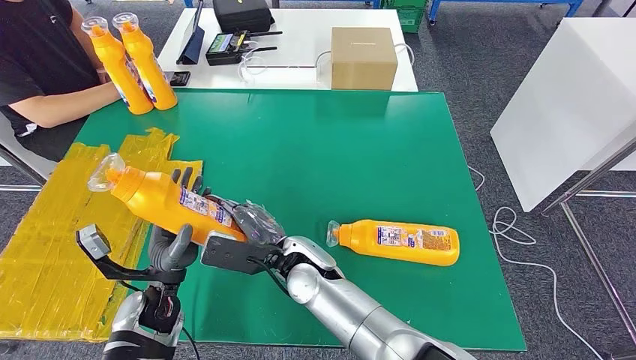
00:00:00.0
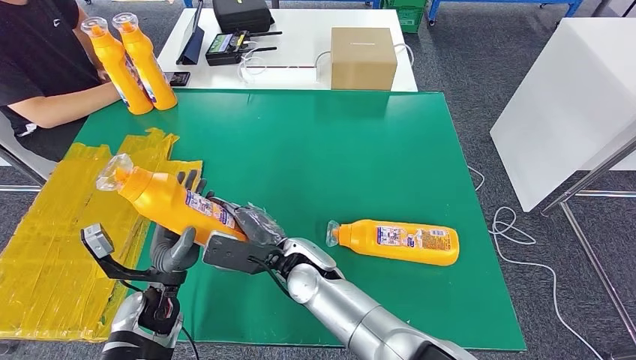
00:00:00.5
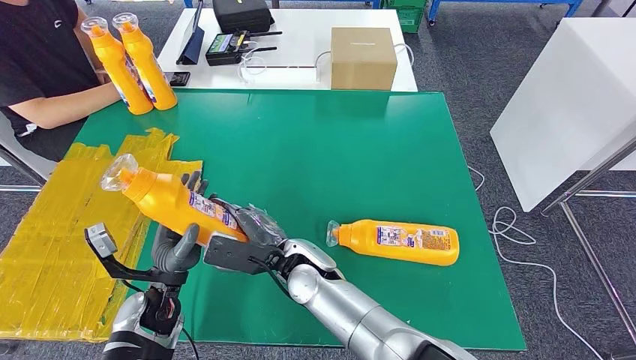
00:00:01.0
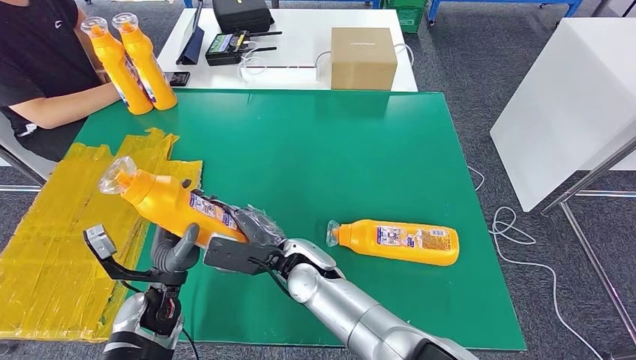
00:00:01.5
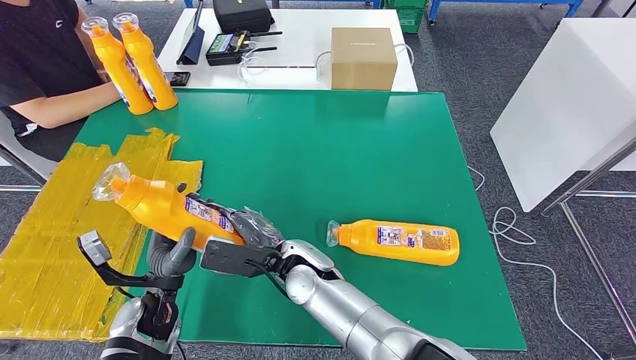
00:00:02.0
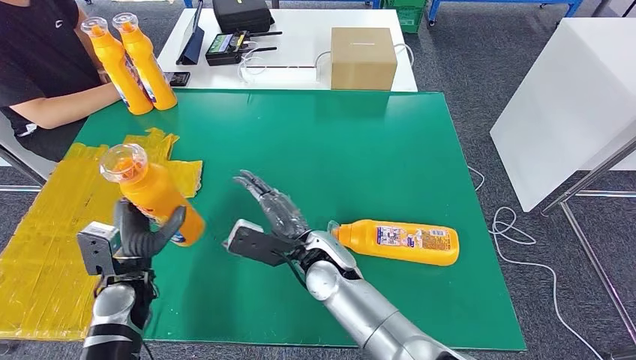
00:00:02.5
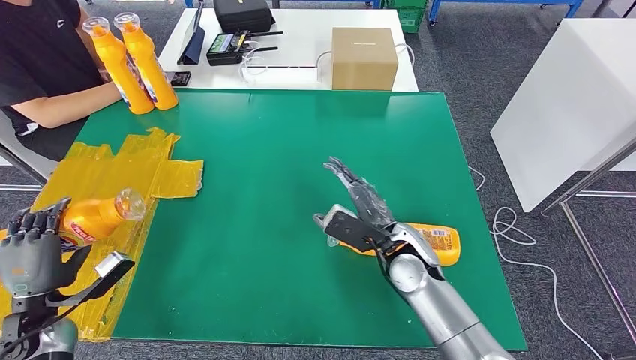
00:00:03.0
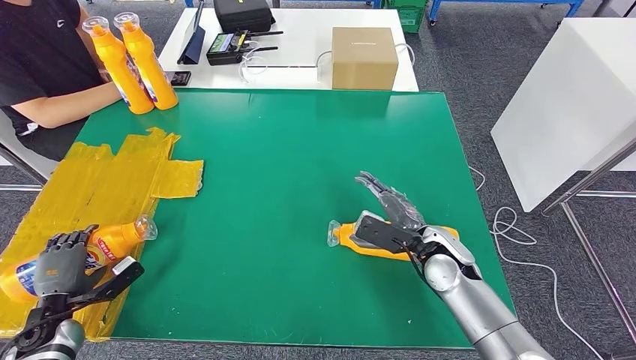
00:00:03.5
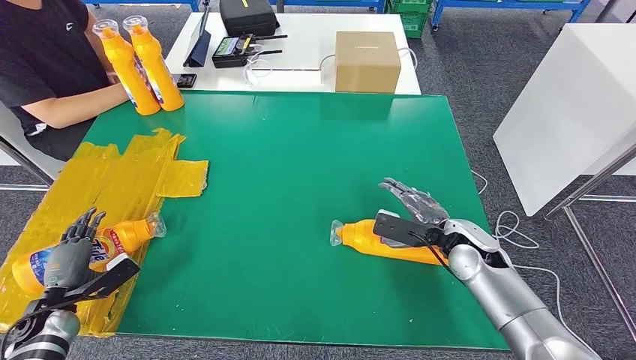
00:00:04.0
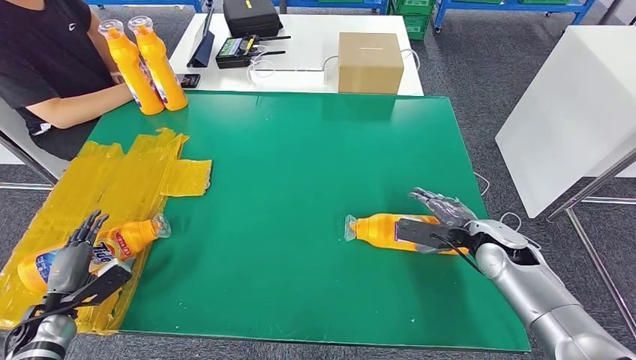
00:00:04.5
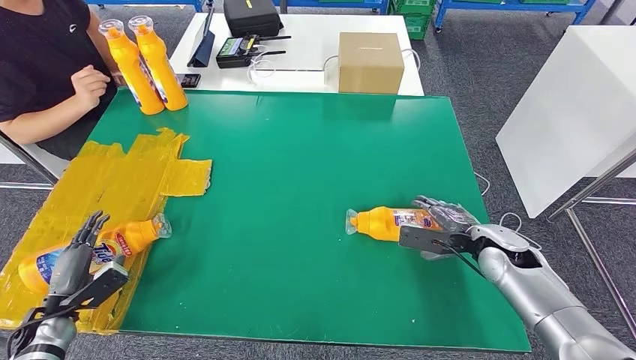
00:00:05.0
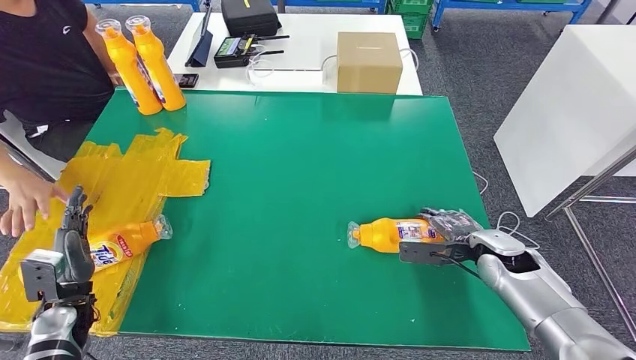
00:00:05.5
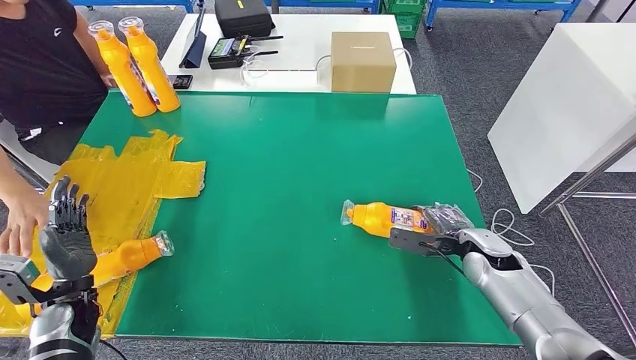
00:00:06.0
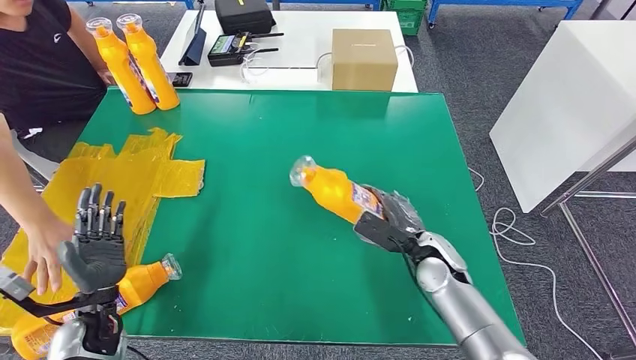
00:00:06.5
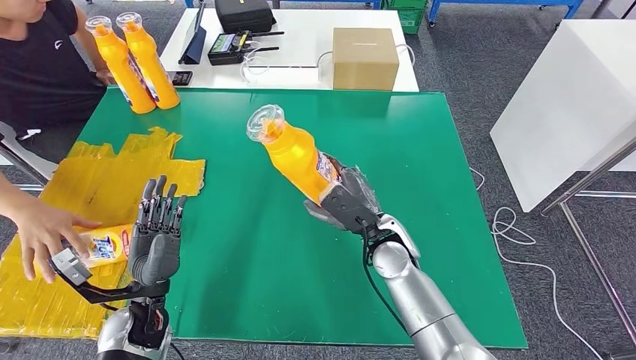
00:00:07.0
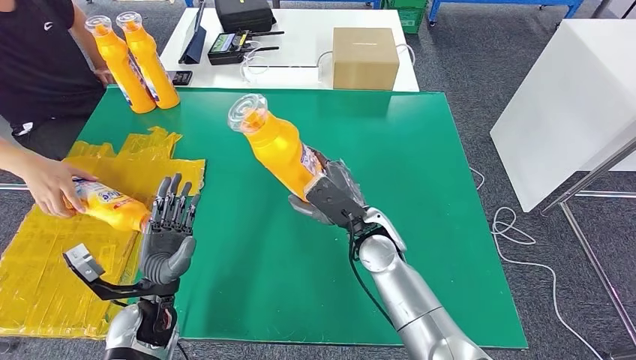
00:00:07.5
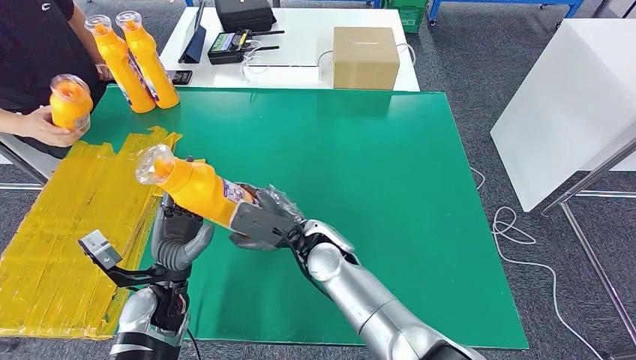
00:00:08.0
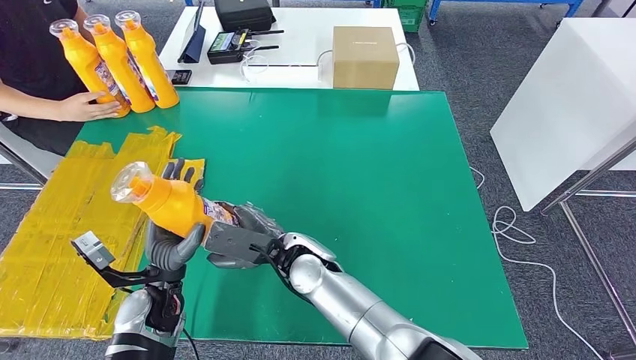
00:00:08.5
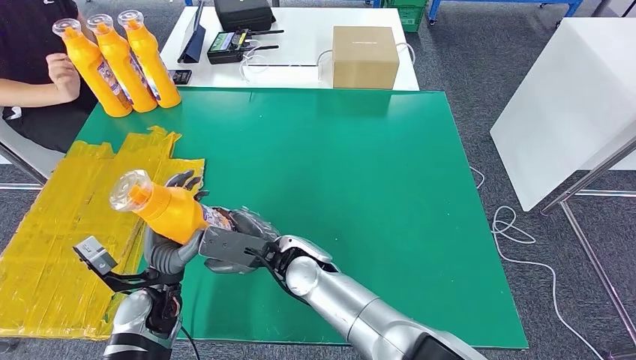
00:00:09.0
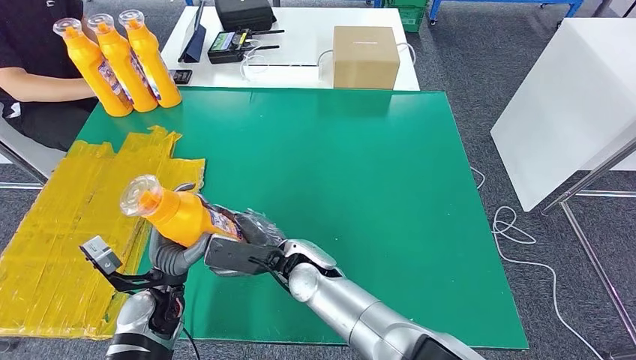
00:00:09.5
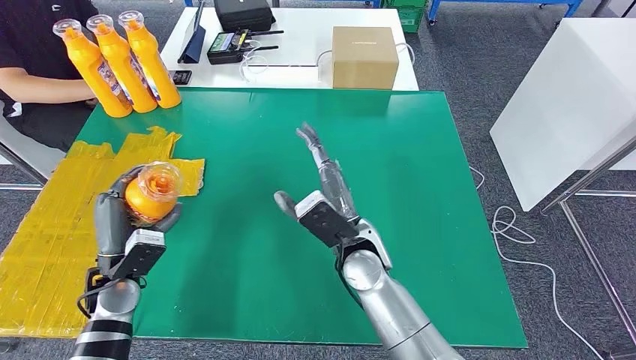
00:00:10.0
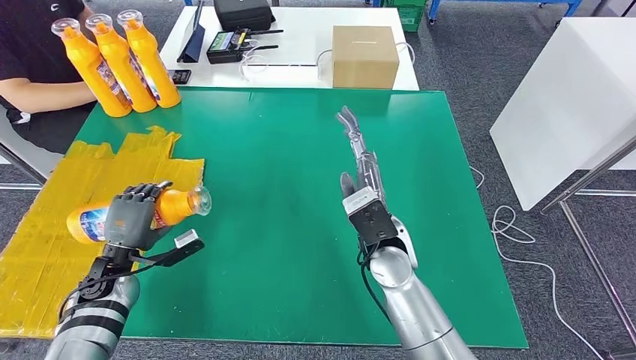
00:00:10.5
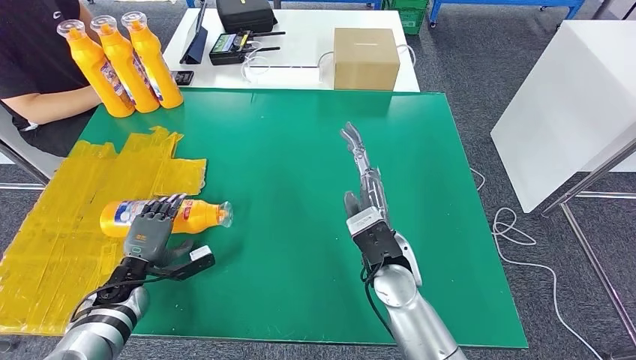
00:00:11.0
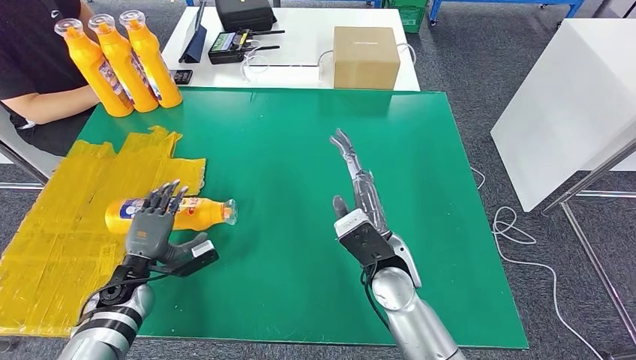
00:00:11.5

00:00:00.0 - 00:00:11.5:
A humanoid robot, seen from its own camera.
Step, 00:00:01.5 - 00:00:04.0: Flip the fast-moving consumer goods bottle to the front side.
Step, 00:00:04.5 - 00:00:08.5: Pick up the fast-moving consumer goods bottle from the table.
Step, 00:00:09.0 - 00:00:11.5: Flip the fast-moving consumer goods bottle to the front side.
00:00:00.0 - 00:00:02.0: Both hands stay put.
00:00:09.5 - 00:00:11.5: The right hand moves to the right, roughly 15 cm, while the left hand moves to the left and downward, some 10 cm.
